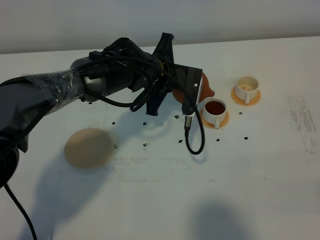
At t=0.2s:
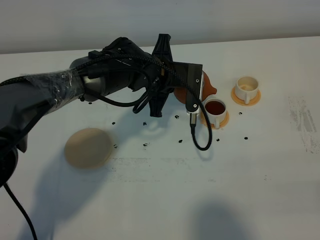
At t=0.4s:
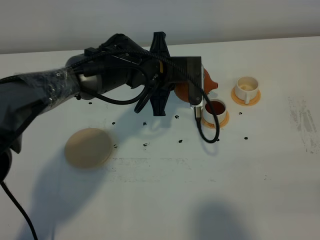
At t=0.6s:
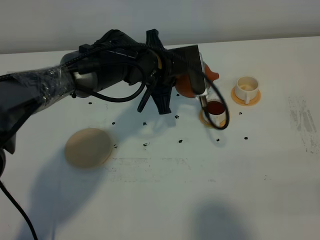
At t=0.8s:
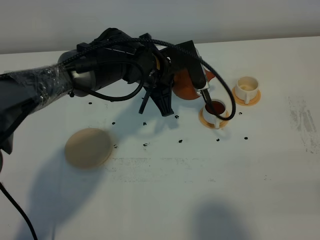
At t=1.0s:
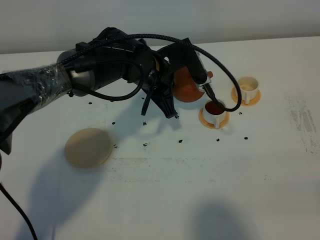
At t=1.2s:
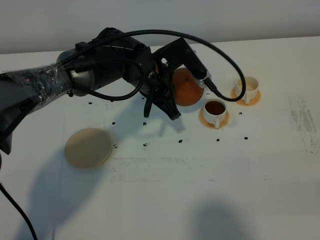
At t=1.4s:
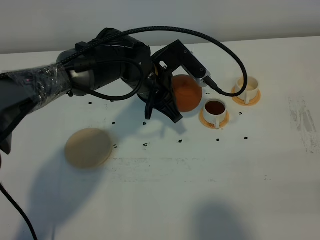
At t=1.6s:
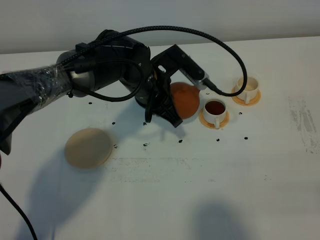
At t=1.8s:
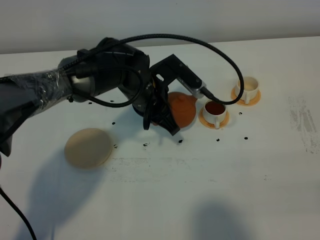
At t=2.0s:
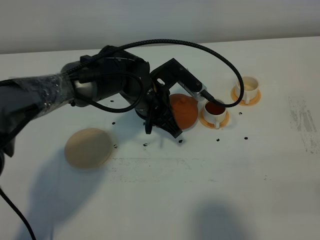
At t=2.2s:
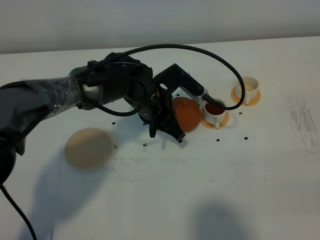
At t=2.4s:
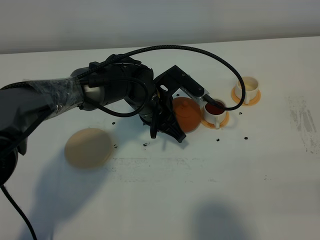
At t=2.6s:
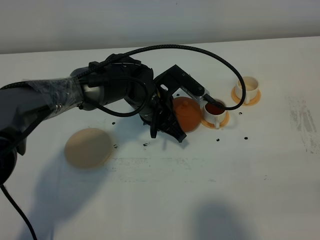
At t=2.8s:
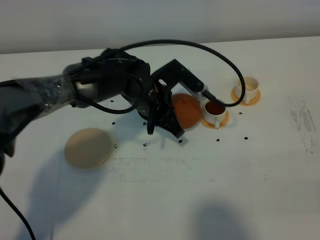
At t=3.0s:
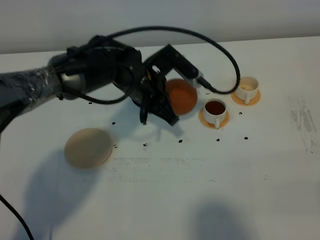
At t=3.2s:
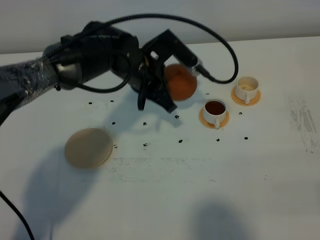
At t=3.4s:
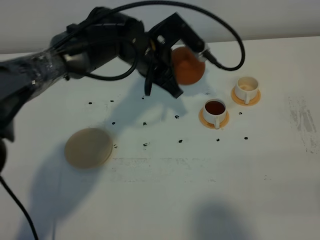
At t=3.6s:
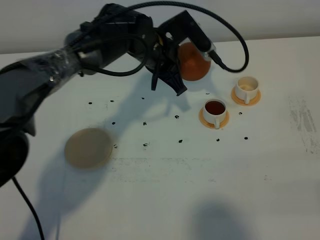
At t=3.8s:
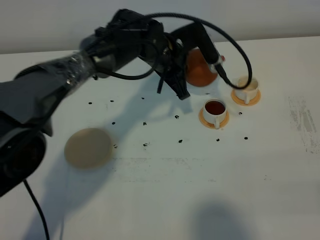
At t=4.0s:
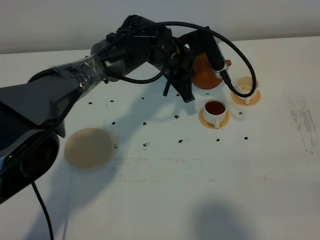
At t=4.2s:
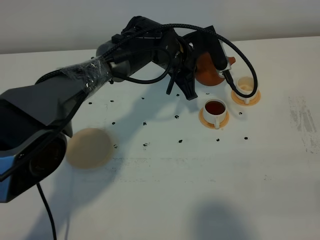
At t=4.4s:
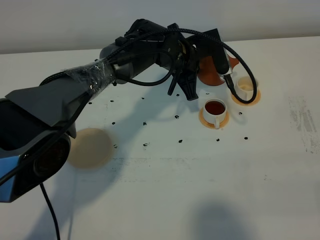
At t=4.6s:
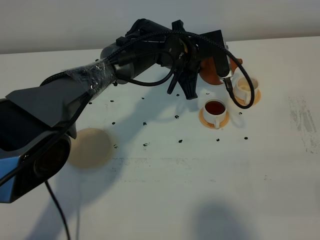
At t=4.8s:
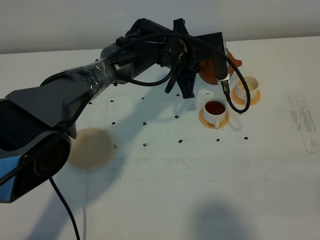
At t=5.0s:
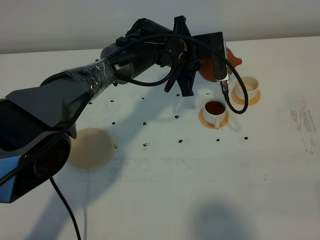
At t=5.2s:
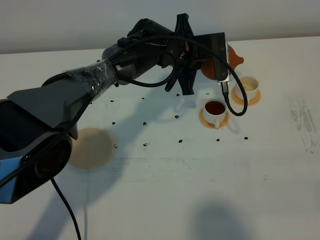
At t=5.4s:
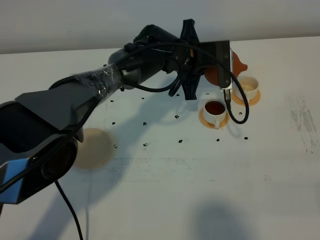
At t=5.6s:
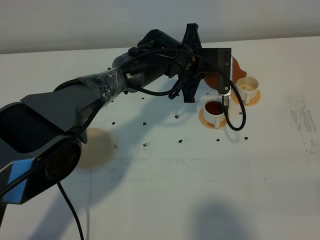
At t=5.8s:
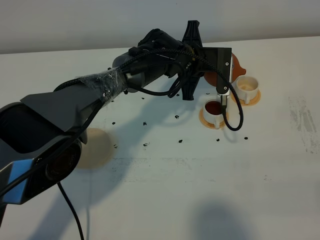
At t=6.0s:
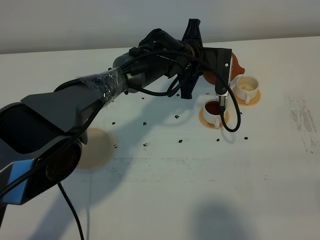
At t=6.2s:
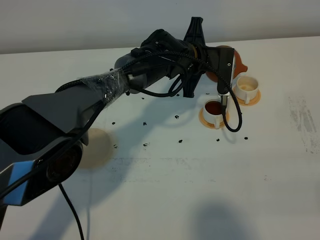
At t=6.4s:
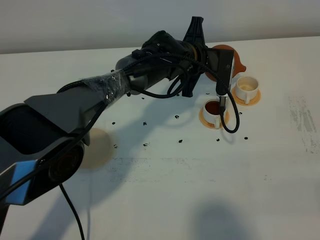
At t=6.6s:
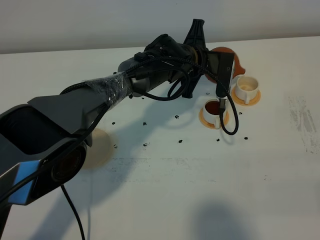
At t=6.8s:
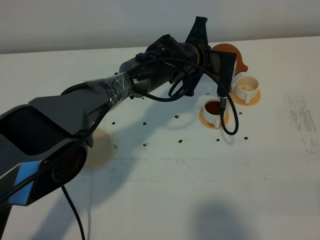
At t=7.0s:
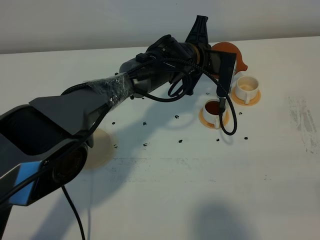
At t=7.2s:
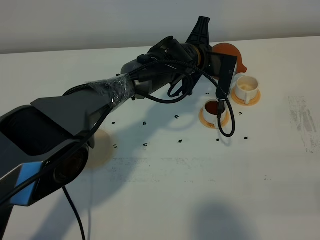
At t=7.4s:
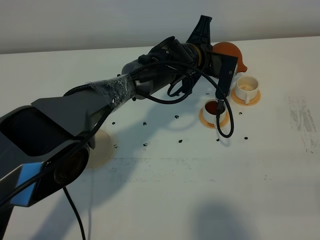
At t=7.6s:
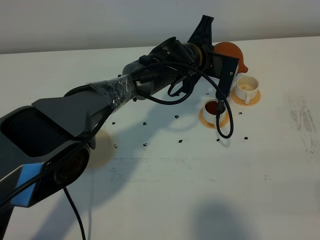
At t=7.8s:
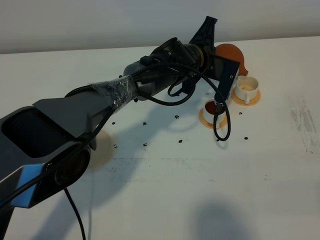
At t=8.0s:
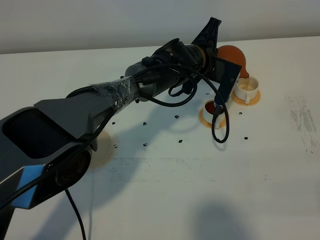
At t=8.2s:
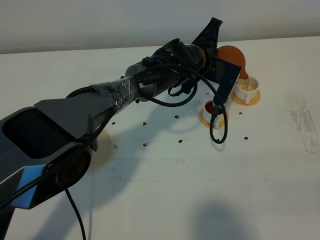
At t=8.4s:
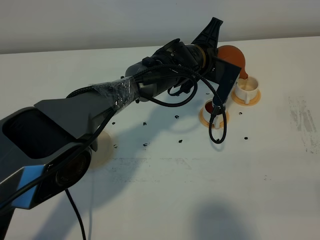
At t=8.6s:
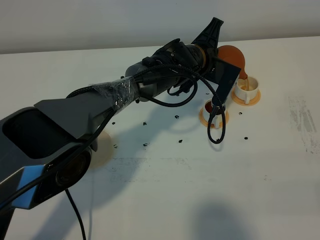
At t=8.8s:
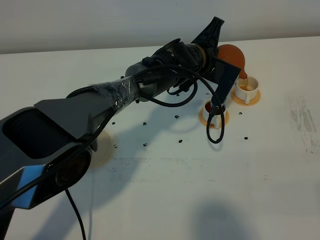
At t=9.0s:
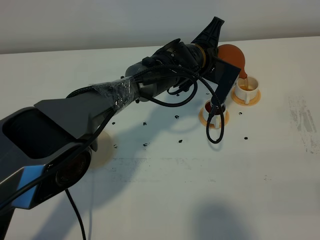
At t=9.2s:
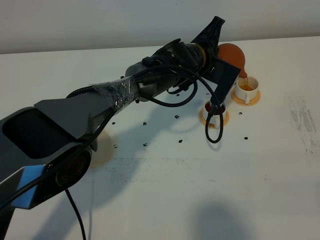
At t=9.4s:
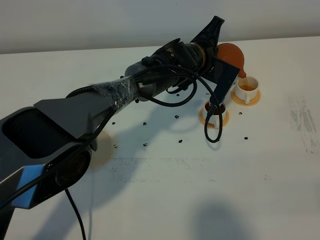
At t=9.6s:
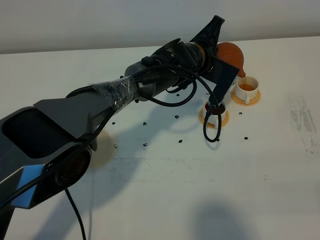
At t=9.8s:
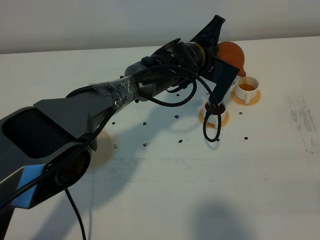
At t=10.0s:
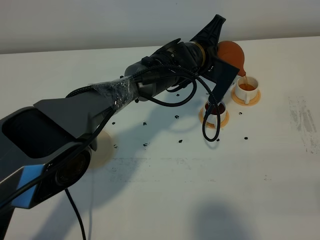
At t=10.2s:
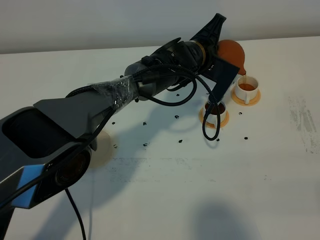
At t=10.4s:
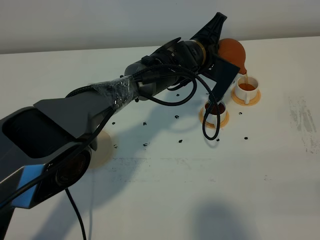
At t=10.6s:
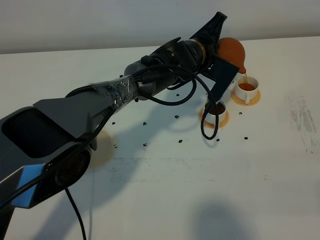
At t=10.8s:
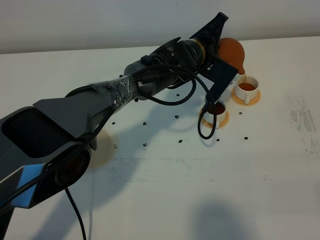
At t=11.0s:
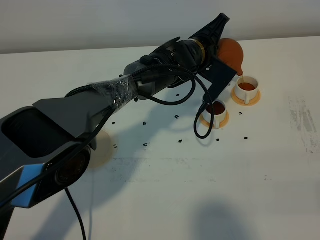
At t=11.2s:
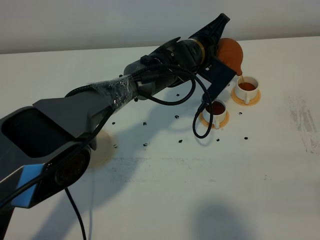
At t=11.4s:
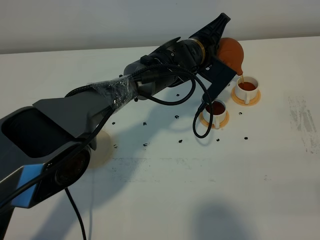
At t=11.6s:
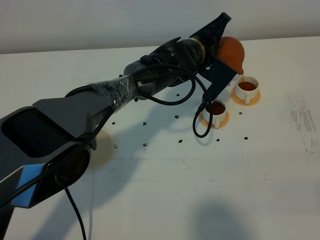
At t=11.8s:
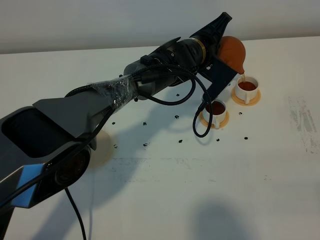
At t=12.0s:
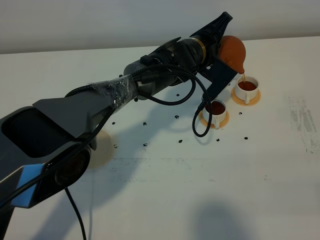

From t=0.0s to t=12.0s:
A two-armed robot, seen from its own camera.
Task of the whole recording: grasp the brown teapot and pour the tea into the two white teacups one by one, put the brown teapot back in its original place.
From t=1.6s to t=3.0s: The grippers make only small movements.
From t=3.0s to t=4.4s: The left gripper shifts about 10 cm forward and to the right.
From t=6.0s to t=7.6s: There are only small adjustments of the grippers.
From t=7.6s to t=10.4s: The grippers stay close to where they were, moving slightly.
From t=10.4s to t=12.0s: The grippers move only a little.

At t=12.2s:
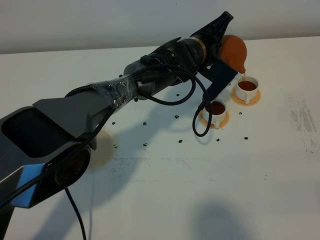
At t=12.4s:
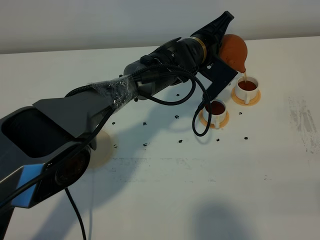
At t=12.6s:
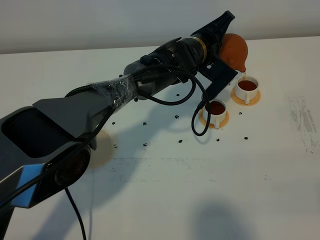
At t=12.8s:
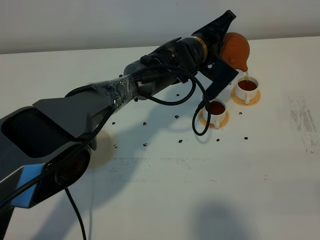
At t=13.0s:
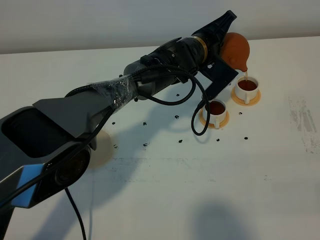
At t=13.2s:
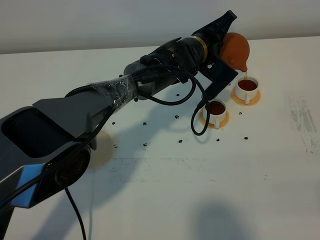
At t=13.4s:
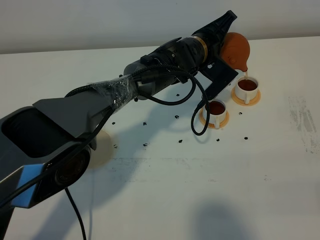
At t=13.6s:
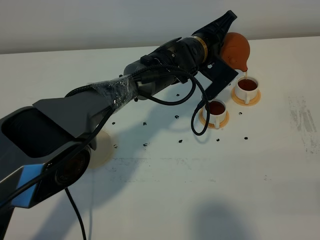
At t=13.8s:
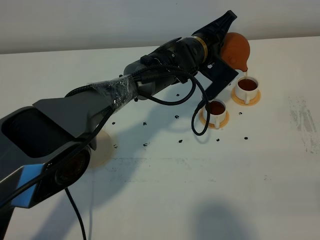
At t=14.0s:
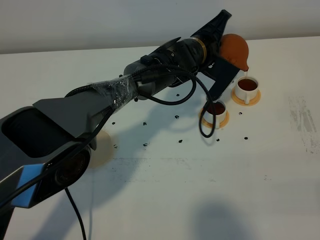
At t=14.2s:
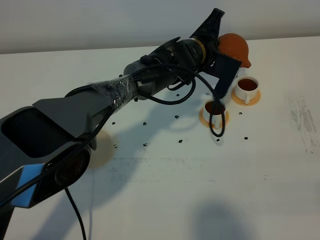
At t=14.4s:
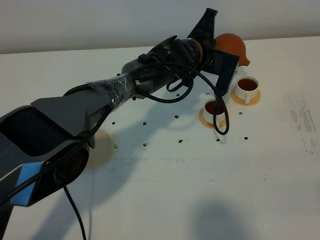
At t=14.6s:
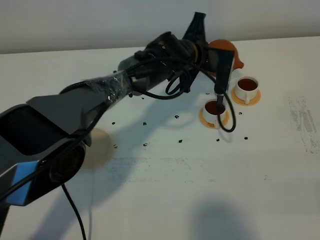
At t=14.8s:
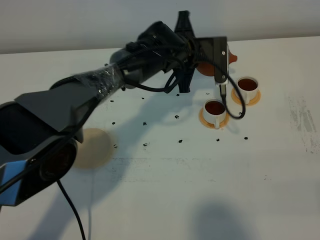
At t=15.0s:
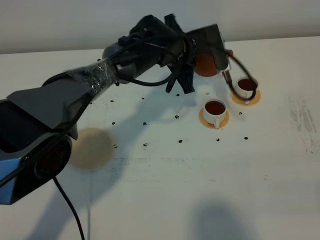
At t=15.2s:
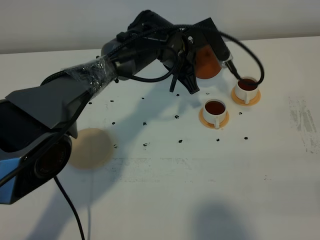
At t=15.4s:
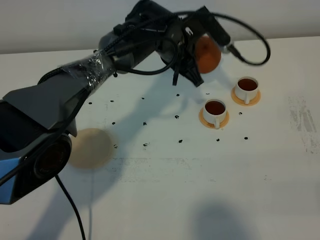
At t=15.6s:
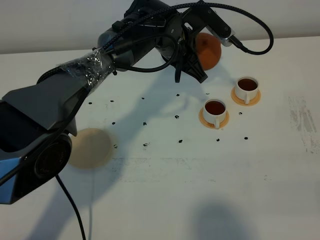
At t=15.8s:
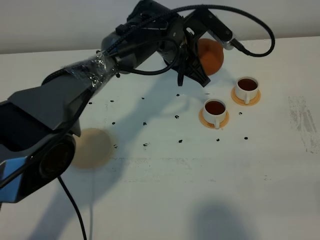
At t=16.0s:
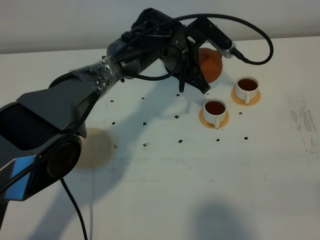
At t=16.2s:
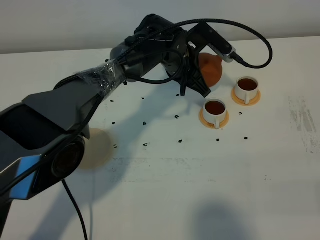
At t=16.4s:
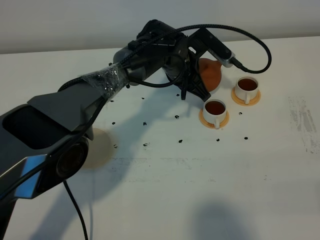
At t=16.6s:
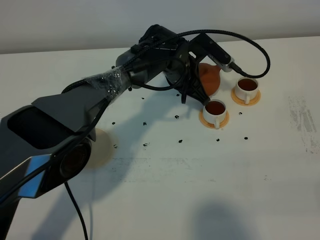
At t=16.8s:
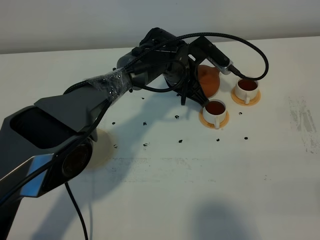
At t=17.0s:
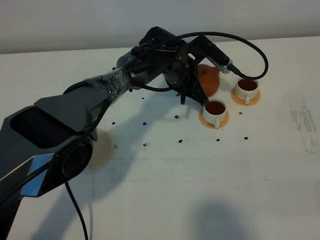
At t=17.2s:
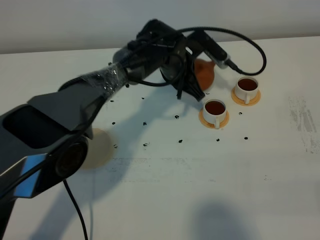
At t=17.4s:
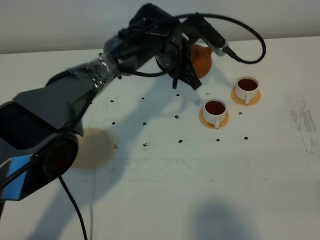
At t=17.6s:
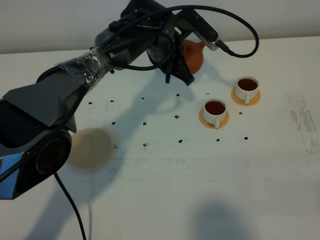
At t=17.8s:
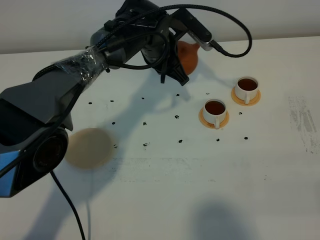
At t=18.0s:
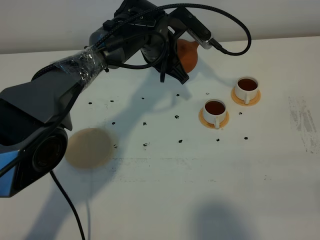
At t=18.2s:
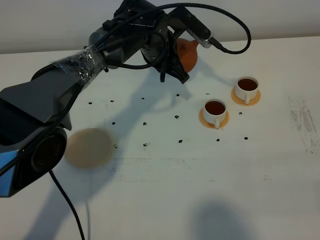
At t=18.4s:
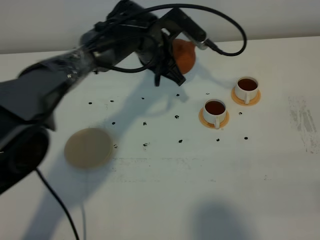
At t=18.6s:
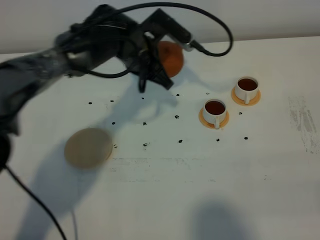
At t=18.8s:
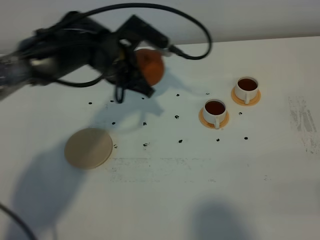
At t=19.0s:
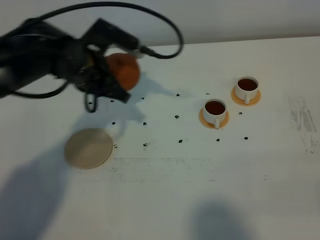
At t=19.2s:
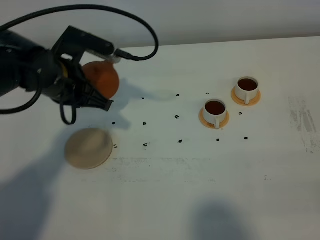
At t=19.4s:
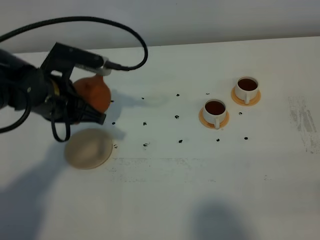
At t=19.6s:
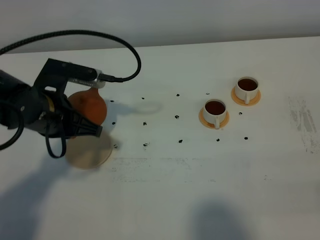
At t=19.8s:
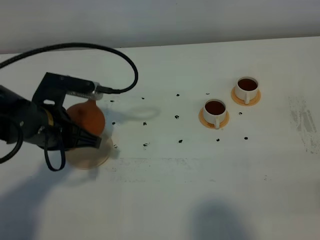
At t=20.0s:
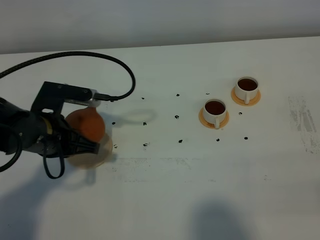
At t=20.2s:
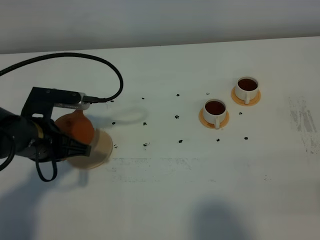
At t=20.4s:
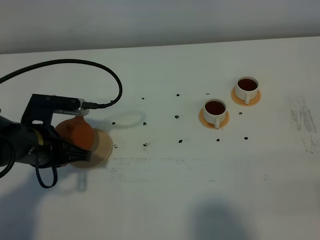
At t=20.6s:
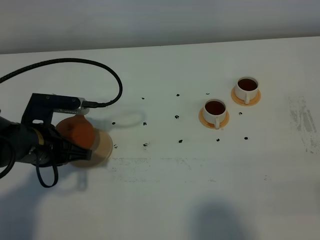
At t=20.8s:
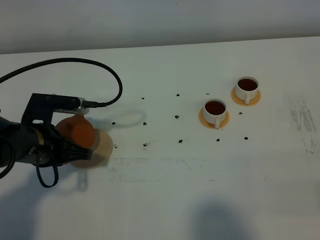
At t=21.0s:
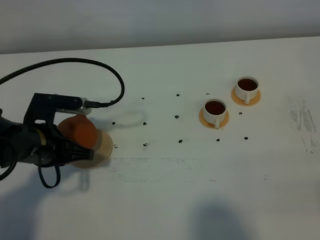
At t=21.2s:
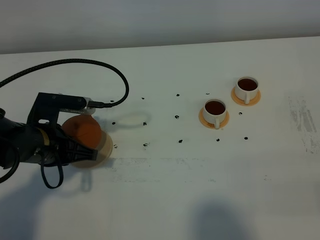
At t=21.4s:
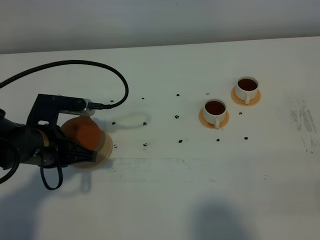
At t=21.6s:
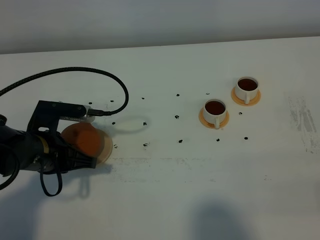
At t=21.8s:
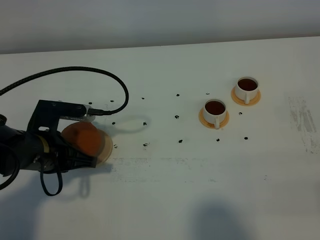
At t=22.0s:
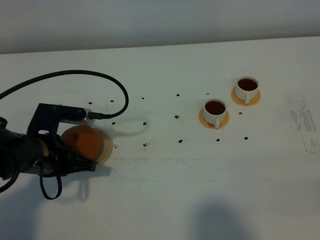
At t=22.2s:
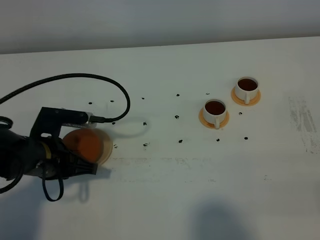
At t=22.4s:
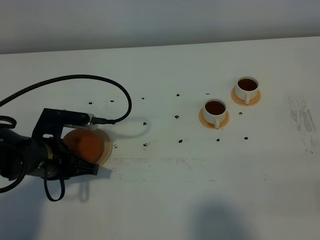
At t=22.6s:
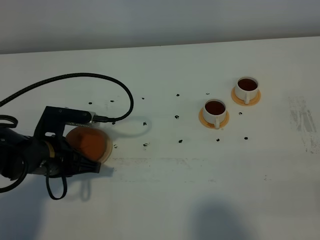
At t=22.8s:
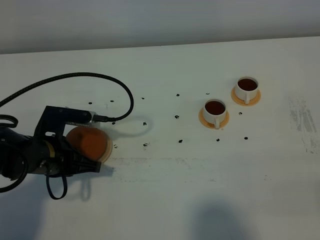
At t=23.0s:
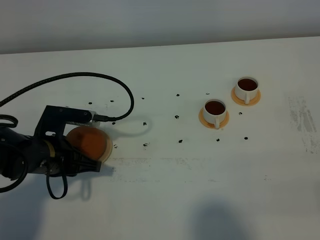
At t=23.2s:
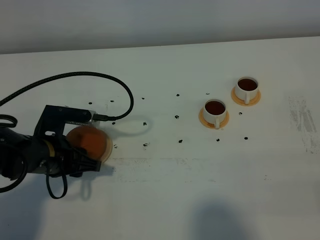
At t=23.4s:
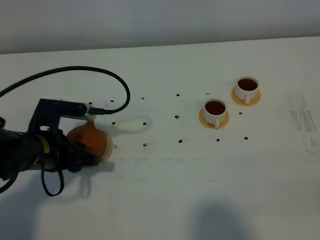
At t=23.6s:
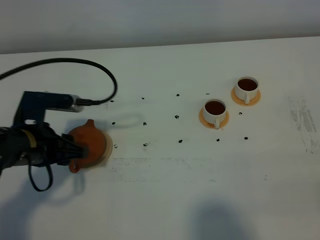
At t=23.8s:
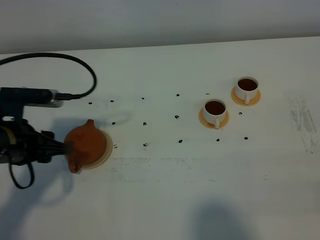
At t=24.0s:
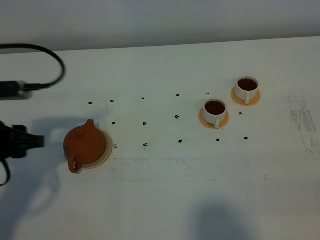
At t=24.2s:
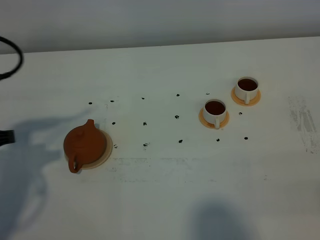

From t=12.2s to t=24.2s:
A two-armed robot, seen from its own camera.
Task of the whole recording: grasp the brown teapot and pour the tea into the two white teacups one by one, put the brown teapot back in its original place.
Step, from t=12.2s to t=14.8s: Pour tea into the teacup with the left gripper.
From t=12.2s to t=13.8s: Both grippers stay about where they are.
From t=15.2s to t=16.6s: The left gripper moves about 5 cm.
From t=16.6s to t=18.2s: The left gripper moves upward, approximately 5 cm.
From t=18.2s to t=19.8s: The left gripper travels backward and to the left by roughly 25 cm.
From t=19.8s to t=21.2s: There are only small adjustments of the grippers.
From t=21.2s to t=22.6s: The grippers stay close to where they were, moving slightly.
From t=22.6s to t=24.2s: The left gripper heads upward and to the left, covering some 15 cm, and opens its fingers.
